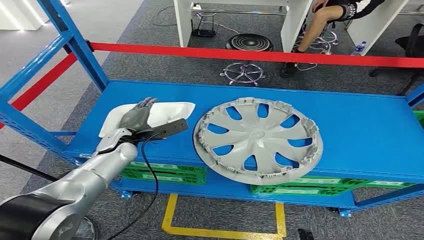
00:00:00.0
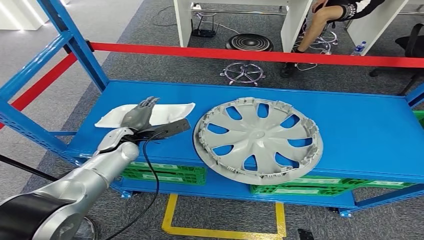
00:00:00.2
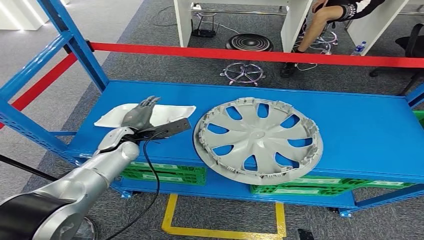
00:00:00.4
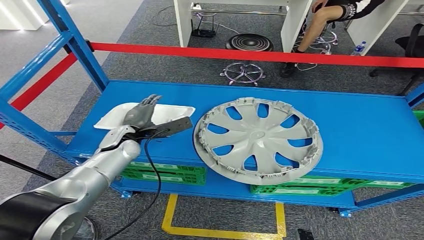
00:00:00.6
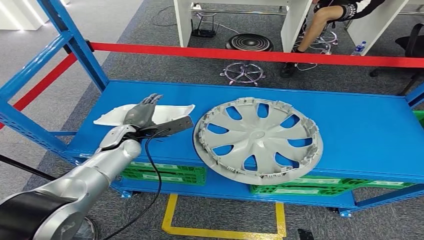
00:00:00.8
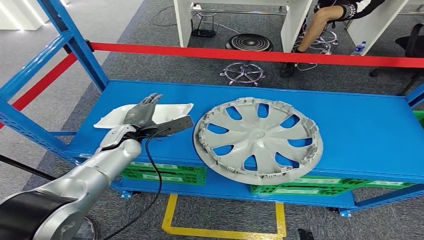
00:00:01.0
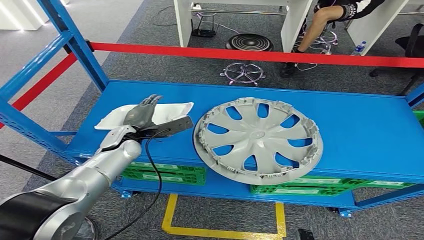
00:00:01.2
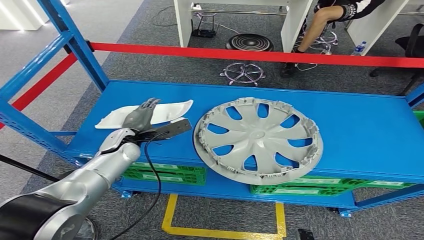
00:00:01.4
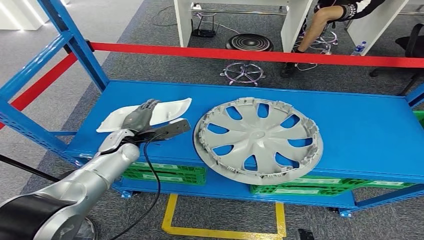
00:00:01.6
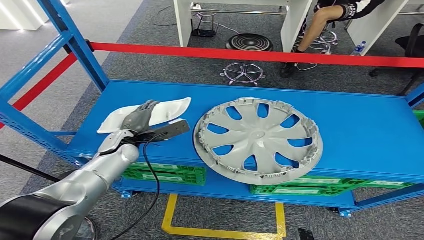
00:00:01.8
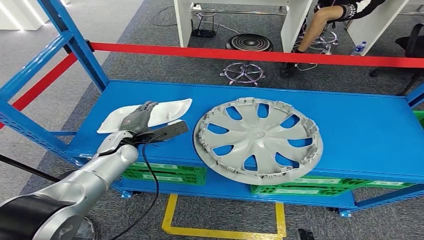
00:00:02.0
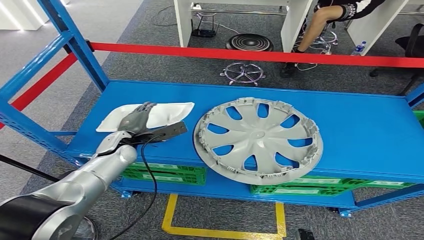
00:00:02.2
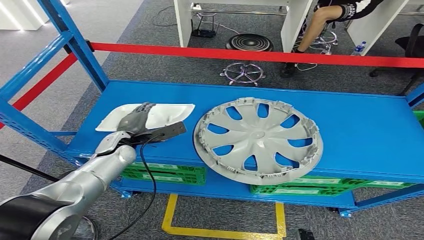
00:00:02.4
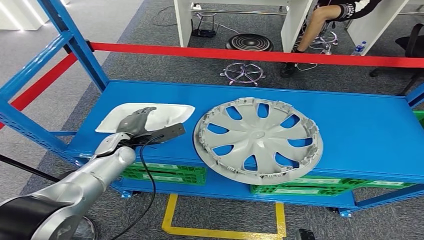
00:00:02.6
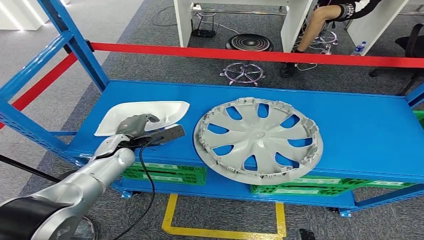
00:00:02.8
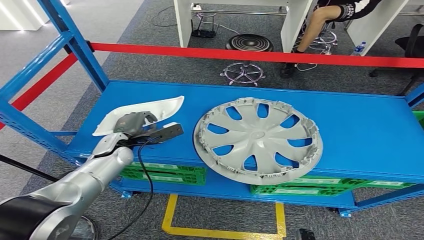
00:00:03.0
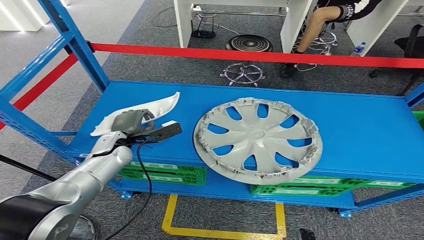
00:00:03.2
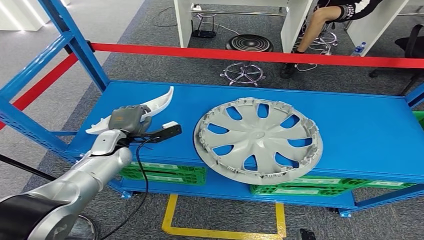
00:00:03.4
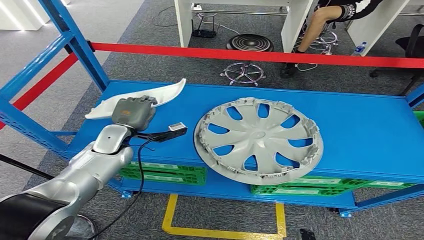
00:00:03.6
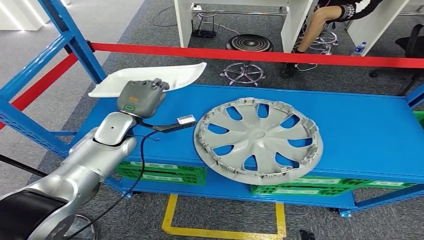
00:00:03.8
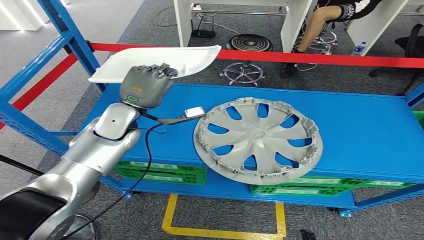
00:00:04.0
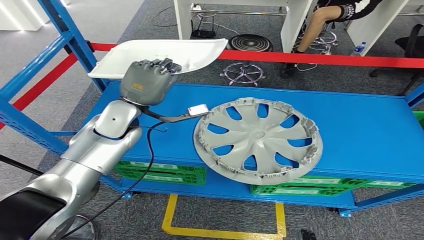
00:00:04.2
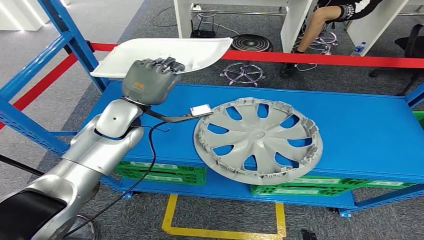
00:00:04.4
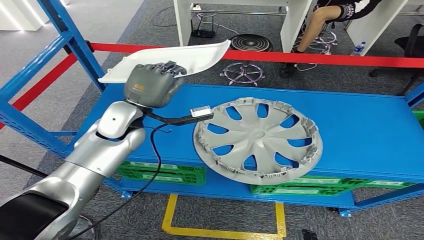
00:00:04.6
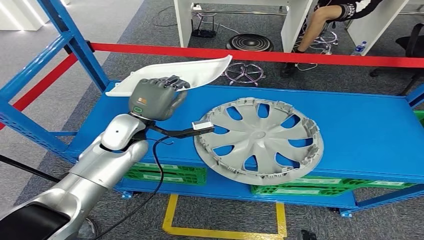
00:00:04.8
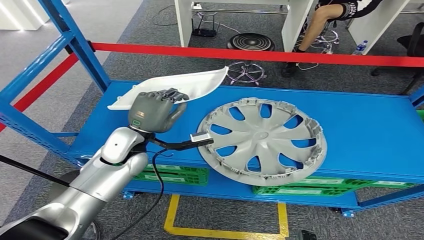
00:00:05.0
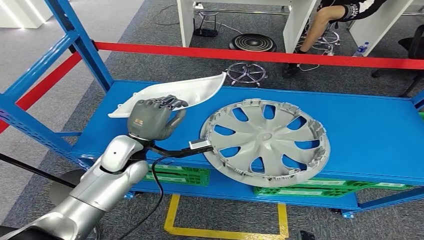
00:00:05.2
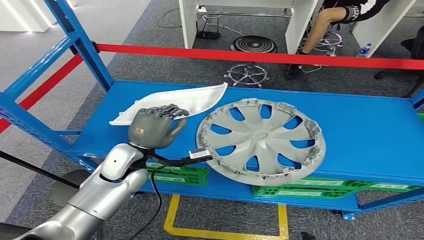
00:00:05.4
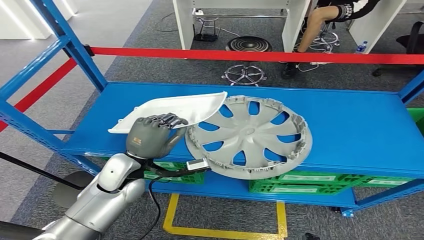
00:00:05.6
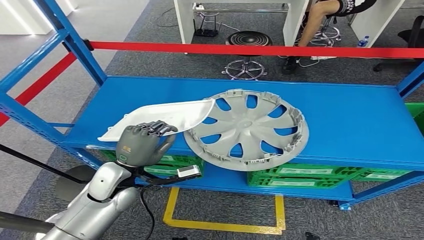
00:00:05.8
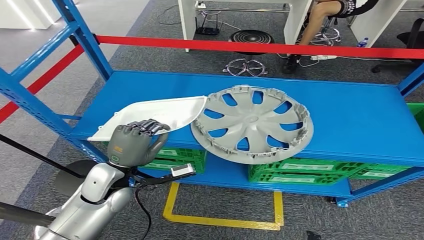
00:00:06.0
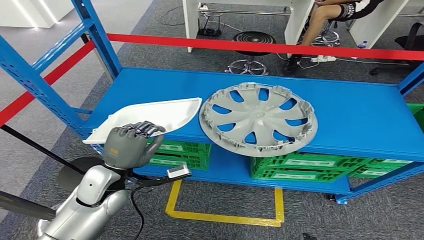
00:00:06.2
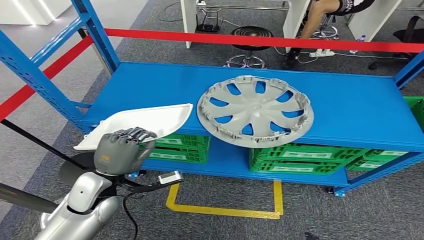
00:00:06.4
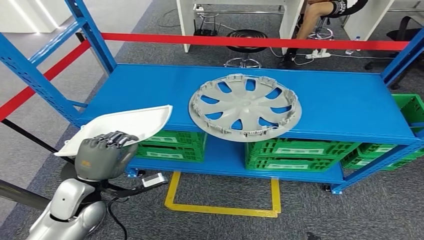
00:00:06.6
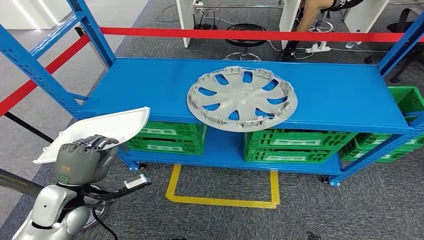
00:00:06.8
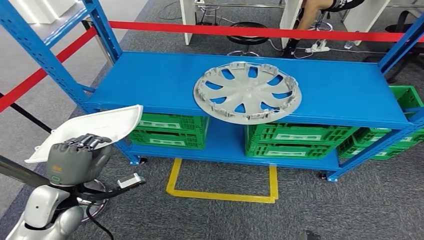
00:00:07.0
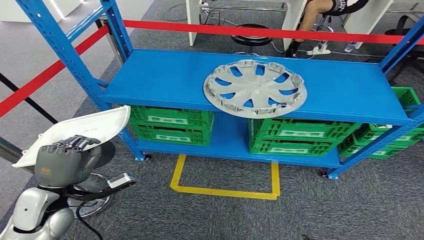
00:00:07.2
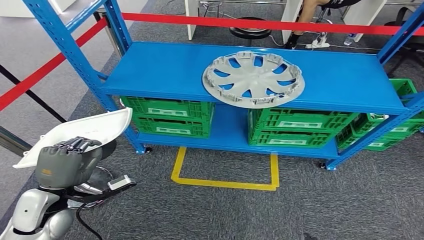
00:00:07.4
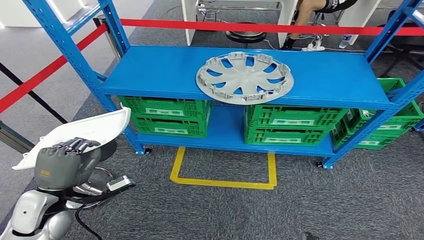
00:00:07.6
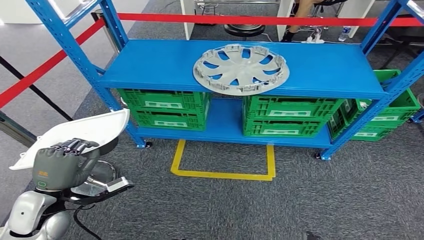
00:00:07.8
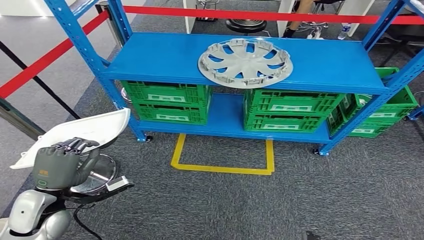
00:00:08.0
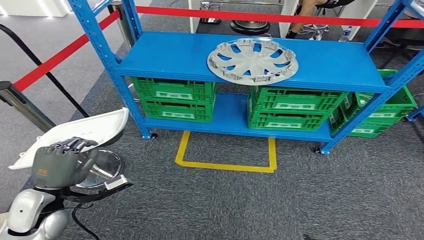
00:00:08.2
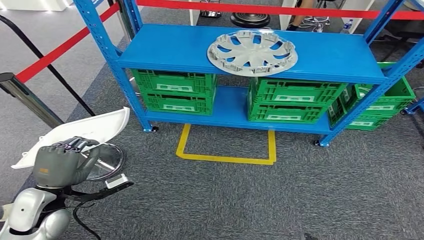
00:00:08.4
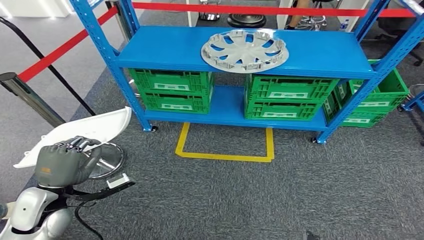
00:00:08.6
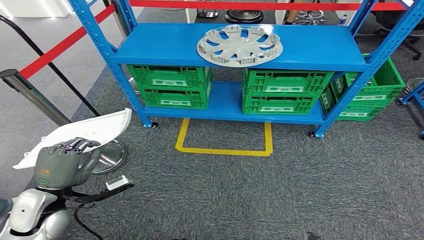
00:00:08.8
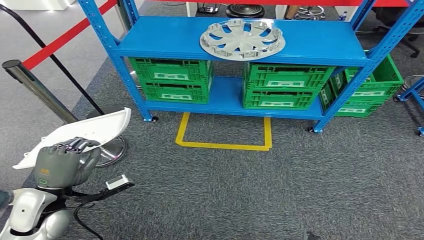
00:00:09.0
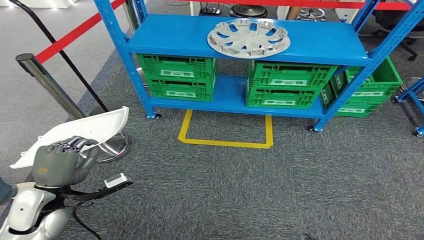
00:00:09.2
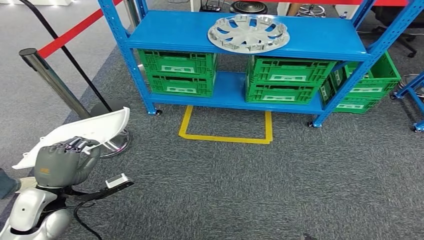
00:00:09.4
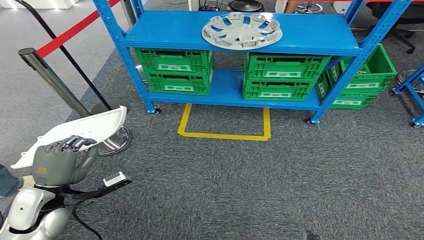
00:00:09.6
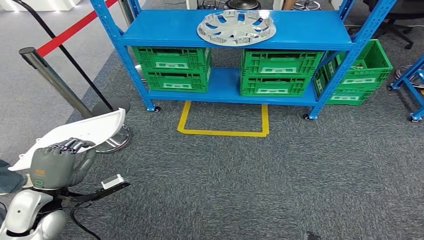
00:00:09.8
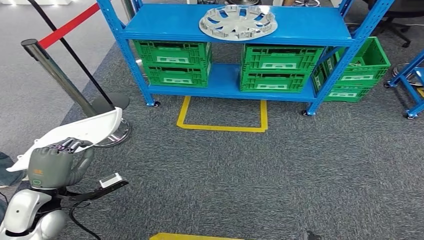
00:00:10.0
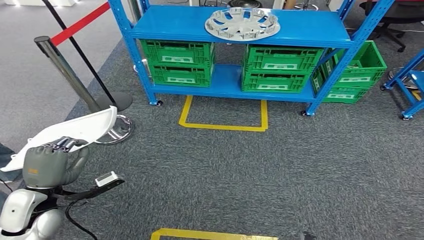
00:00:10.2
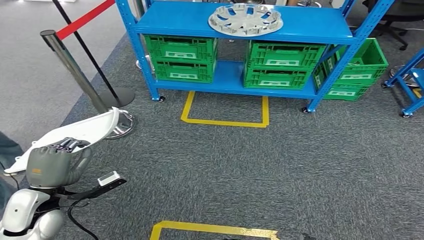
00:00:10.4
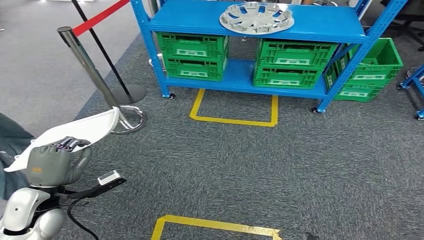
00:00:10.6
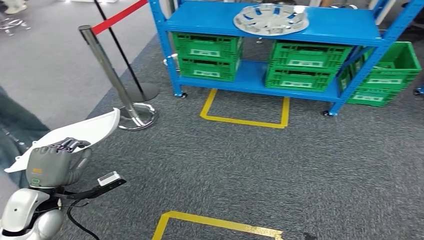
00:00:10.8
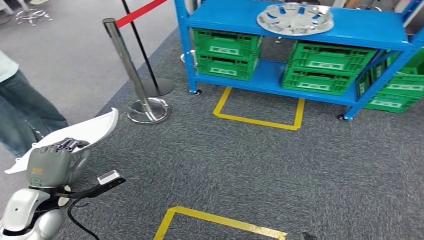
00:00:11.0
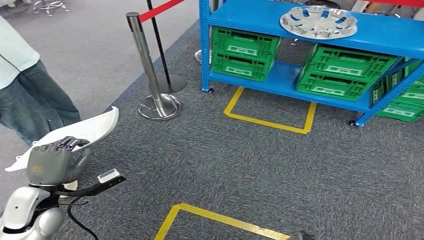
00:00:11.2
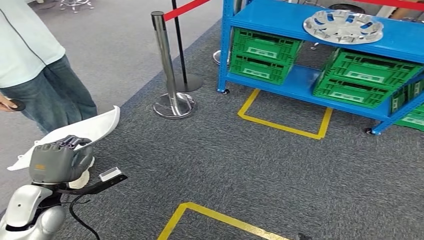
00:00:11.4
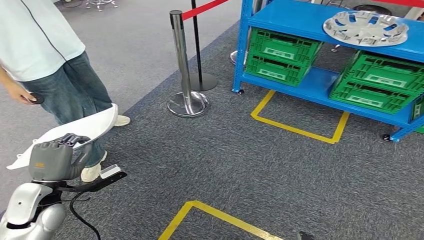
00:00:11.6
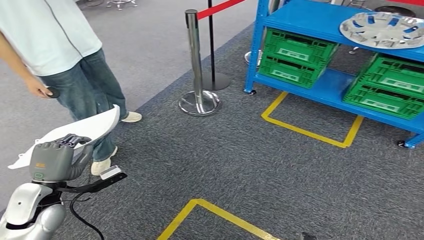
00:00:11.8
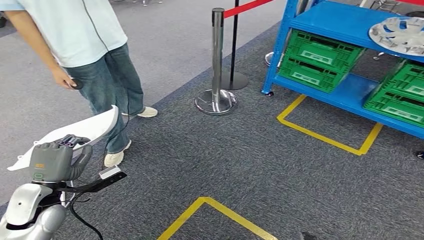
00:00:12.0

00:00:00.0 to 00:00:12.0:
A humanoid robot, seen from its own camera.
Step, 00:00:00.0 to 00:00:03.8: Pick up the small parts from the shelf.
00:00:01.6 to 00:00:03.0: The hands move only a little.
00:00:03.0 to 00:00:04.4: The left hand goes some 15 cm upward.

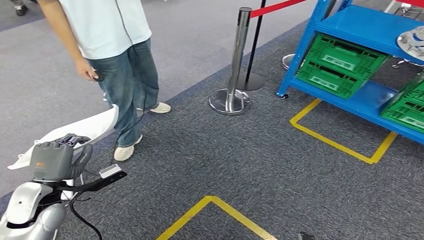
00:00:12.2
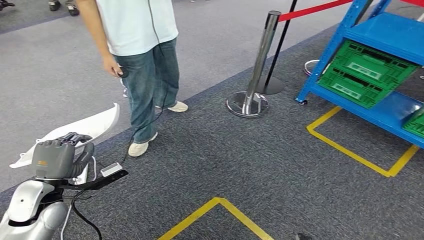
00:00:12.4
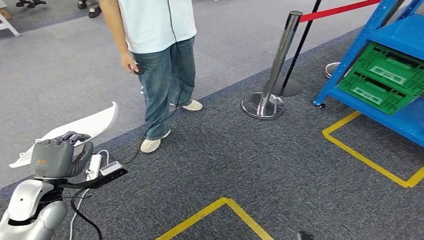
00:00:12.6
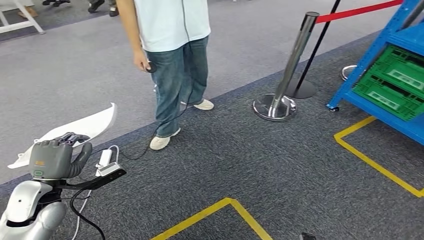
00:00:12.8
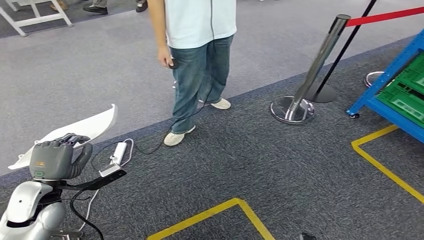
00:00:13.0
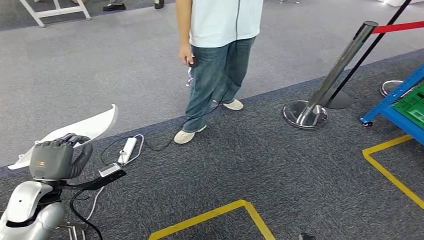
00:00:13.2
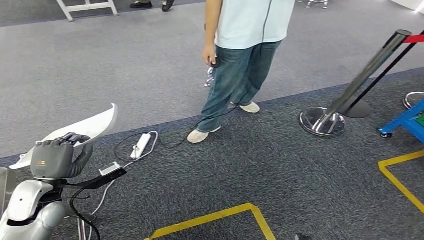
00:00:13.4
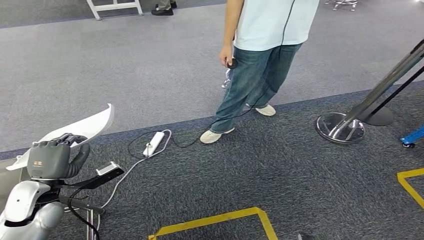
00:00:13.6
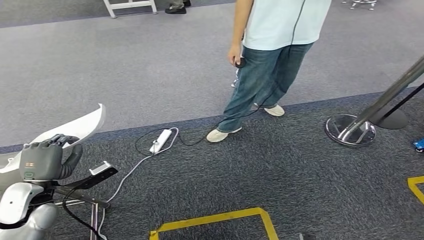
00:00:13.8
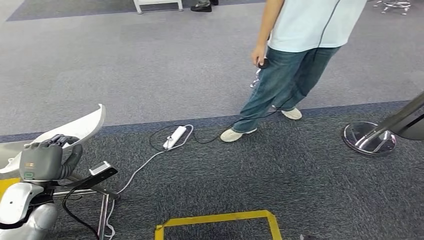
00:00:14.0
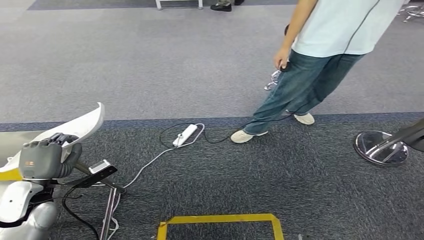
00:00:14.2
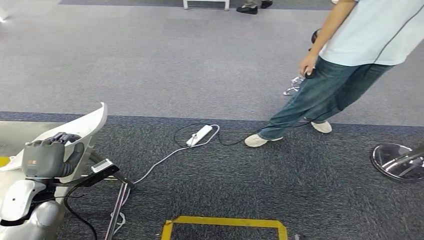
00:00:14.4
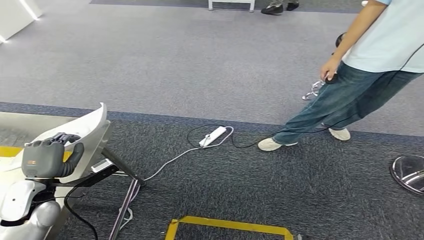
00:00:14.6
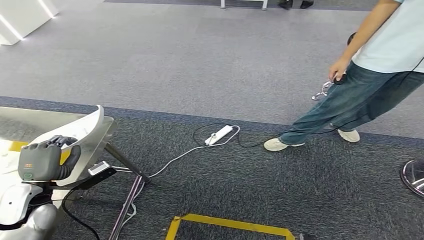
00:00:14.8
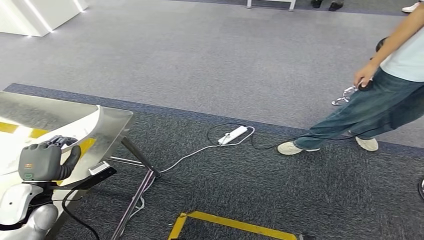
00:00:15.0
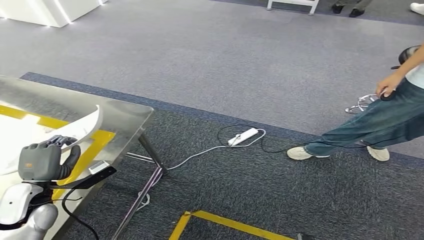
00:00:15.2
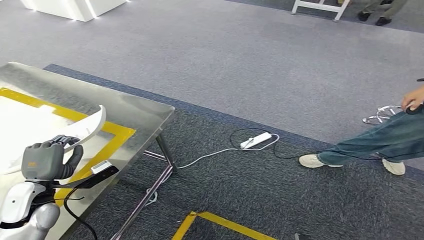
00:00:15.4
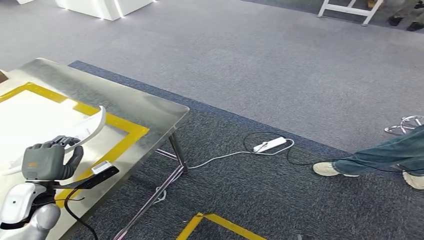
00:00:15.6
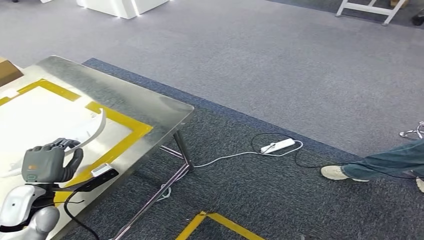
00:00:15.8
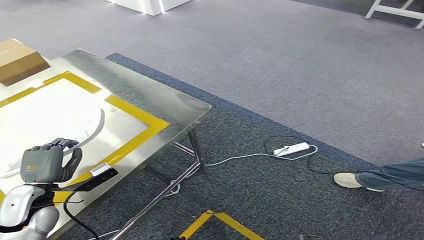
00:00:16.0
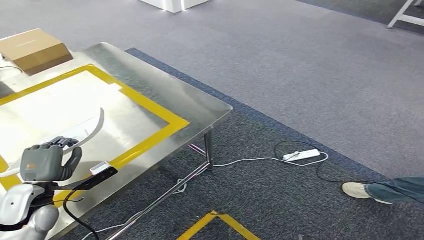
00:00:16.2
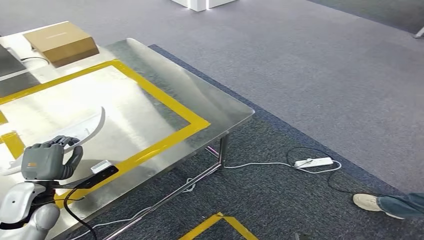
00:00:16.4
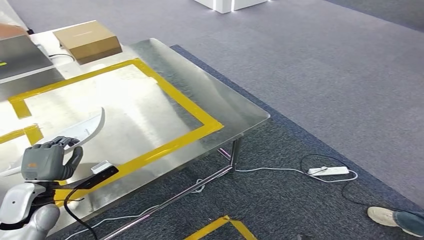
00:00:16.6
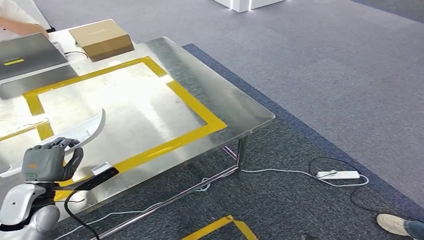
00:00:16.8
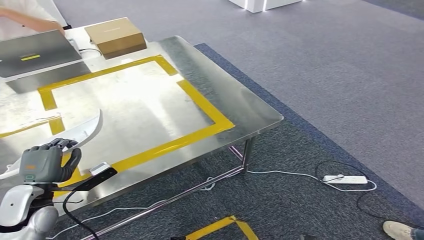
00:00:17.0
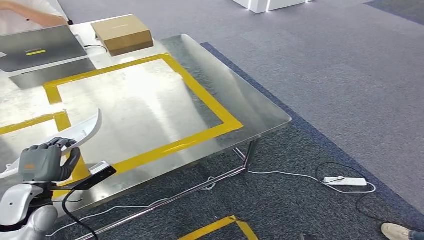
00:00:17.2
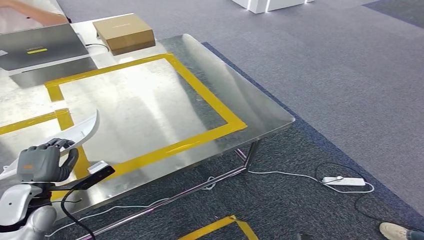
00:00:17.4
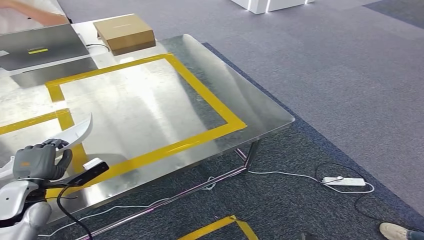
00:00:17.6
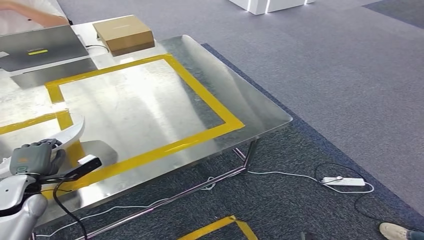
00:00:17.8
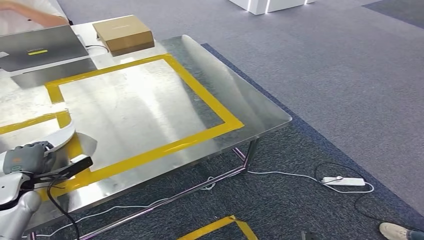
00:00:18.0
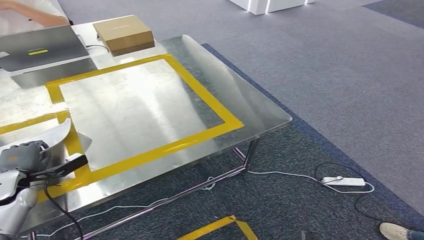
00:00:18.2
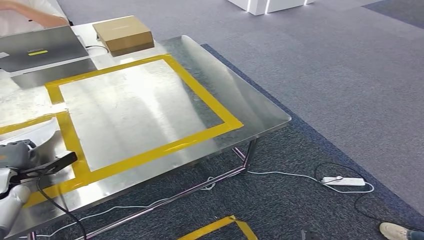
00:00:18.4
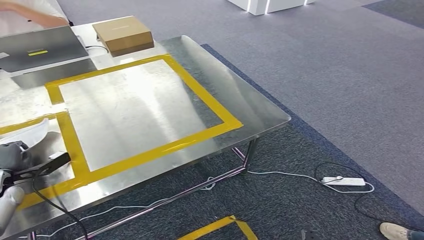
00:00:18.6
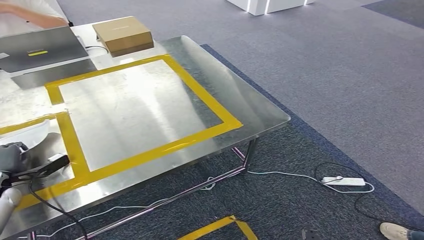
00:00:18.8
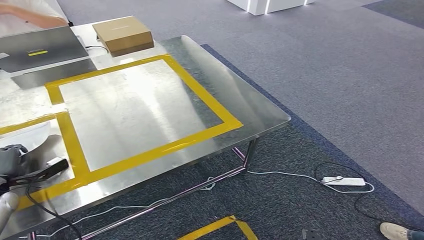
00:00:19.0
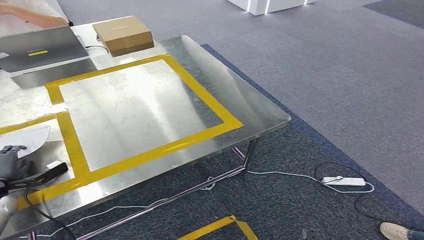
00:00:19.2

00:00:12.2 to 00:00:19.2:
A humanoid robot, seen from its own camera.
Step, 00:00:12.2 to 00:00:15.4: Move the small parts to the workbench.
00:00:17.8 to 00:00:19.2: The left hand shifts about 10 cm to the left and downward.
